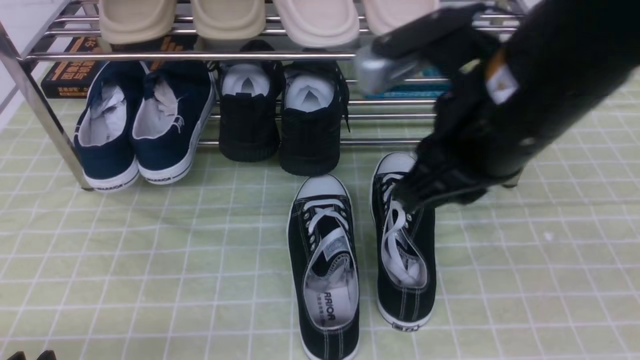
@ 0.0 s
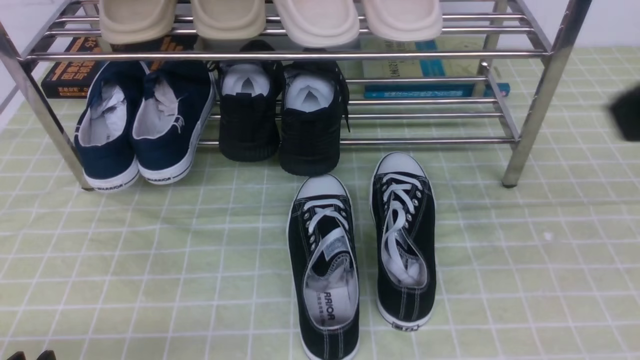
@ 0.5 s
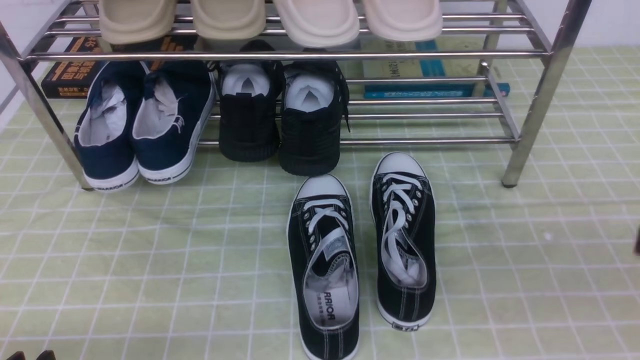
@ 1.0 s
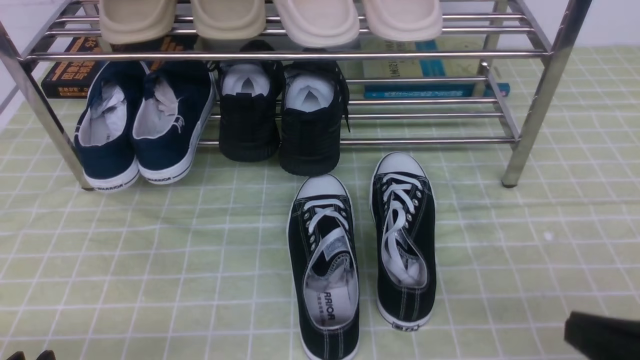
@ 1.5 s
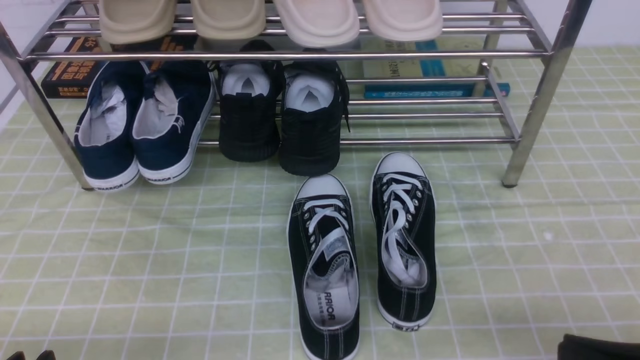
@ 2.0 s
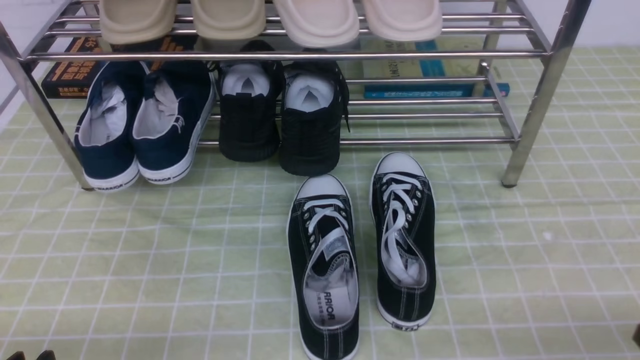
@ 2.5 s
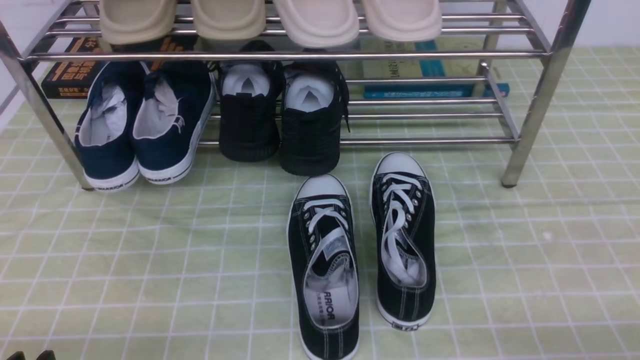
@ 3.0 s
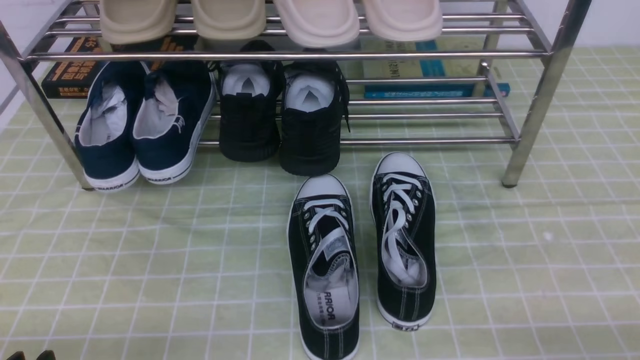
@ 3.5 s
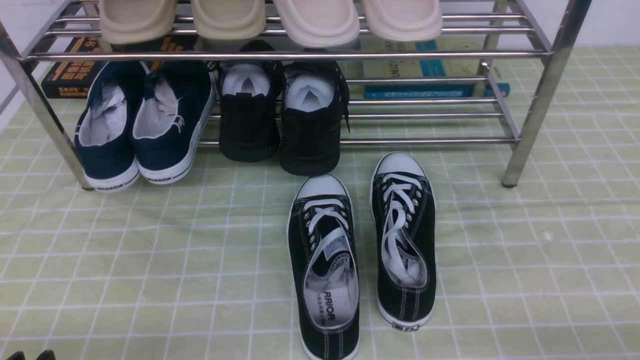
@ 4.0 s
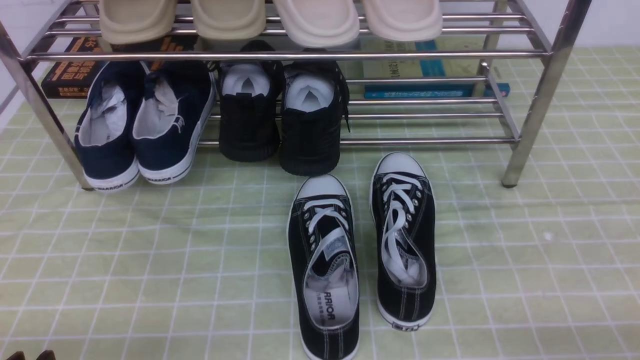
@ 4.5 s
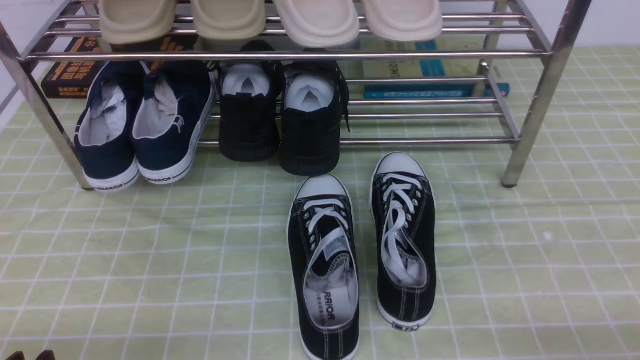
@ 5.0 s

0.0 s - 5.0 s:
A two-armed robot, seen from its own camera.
0.0 s - 2.5 s: The right gripper shifts approximately 30 cm downward, to the right and backward.
